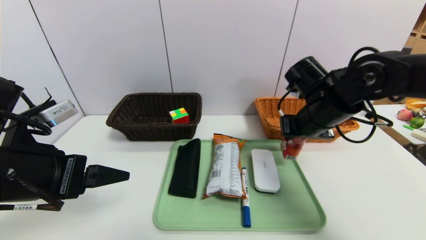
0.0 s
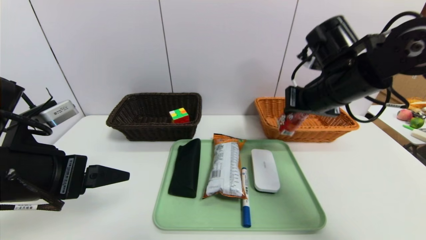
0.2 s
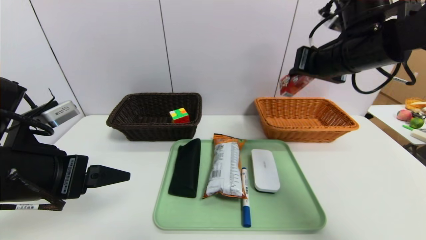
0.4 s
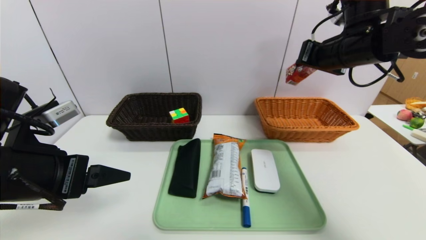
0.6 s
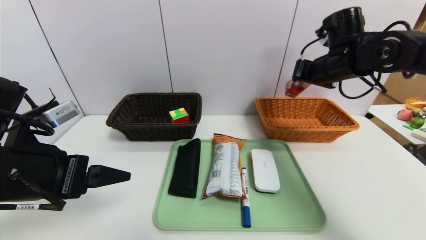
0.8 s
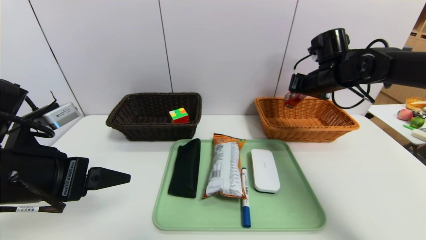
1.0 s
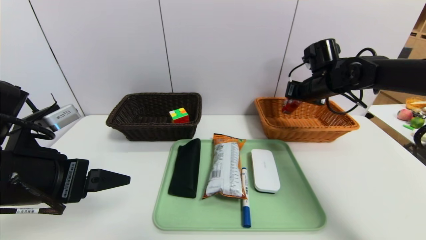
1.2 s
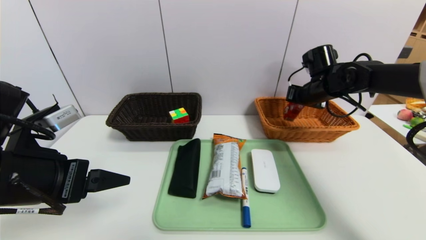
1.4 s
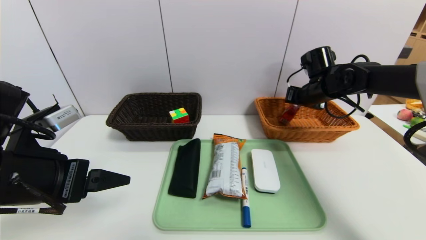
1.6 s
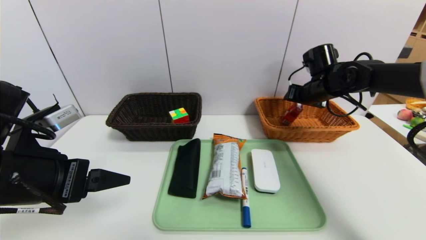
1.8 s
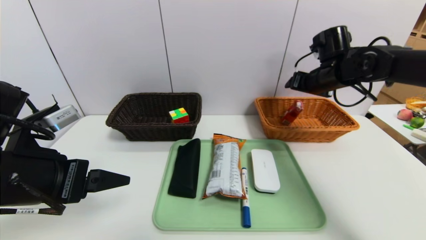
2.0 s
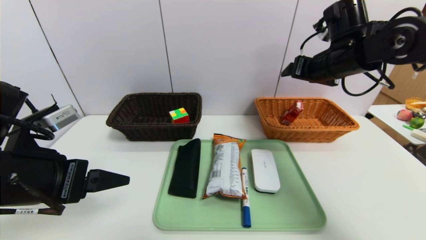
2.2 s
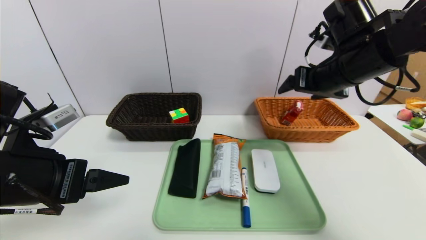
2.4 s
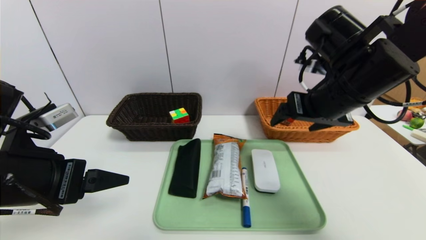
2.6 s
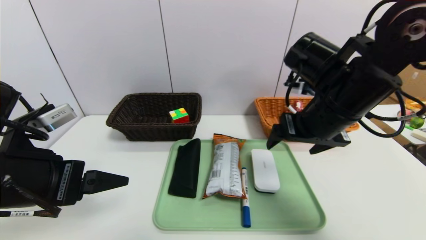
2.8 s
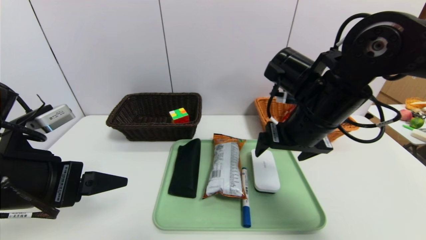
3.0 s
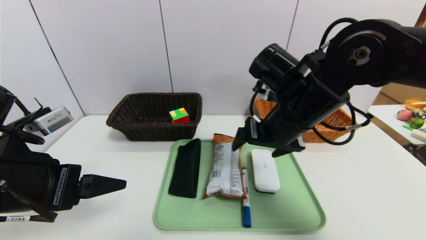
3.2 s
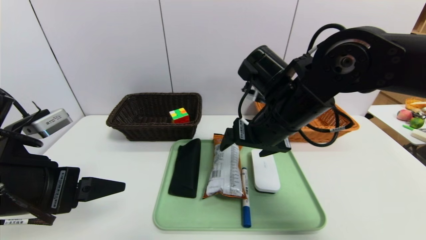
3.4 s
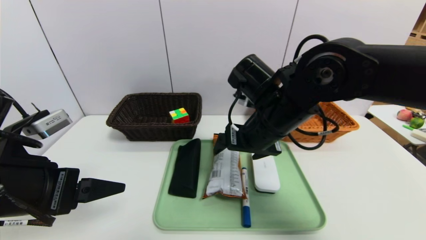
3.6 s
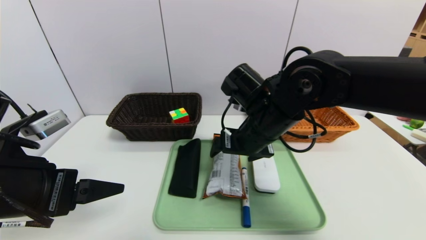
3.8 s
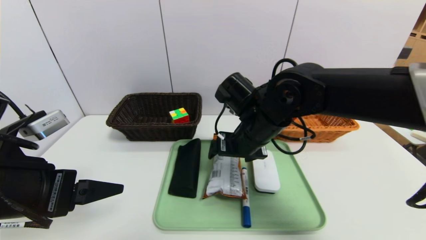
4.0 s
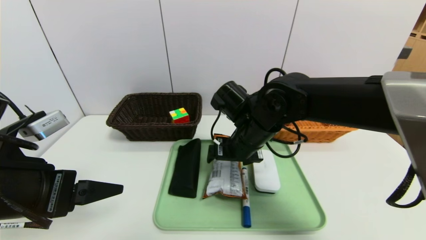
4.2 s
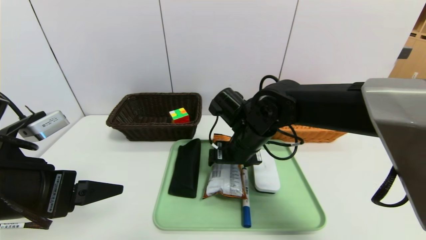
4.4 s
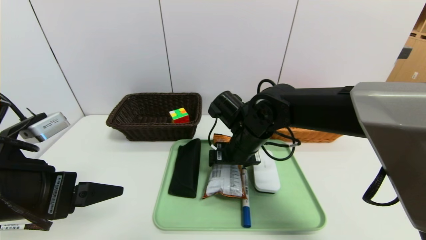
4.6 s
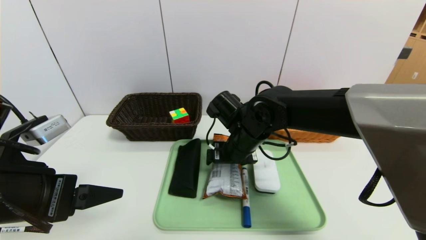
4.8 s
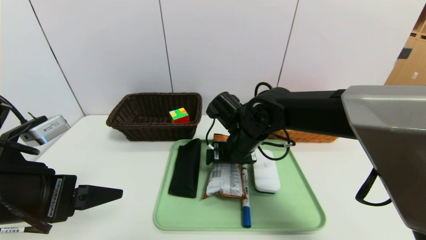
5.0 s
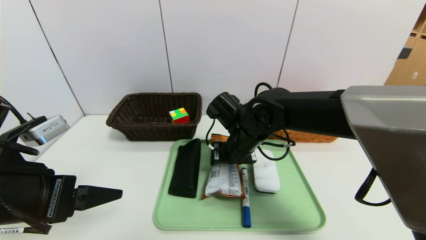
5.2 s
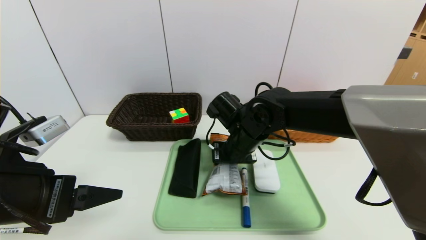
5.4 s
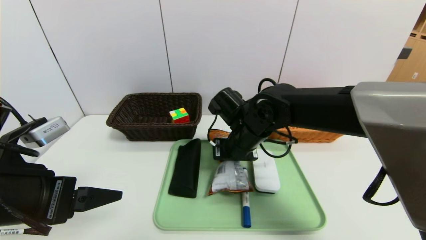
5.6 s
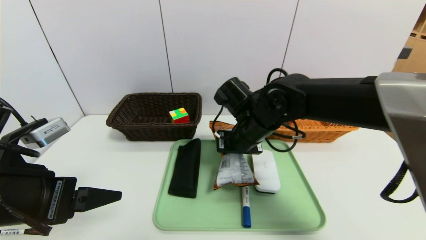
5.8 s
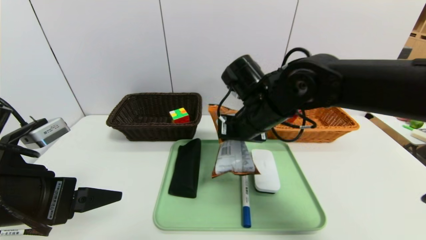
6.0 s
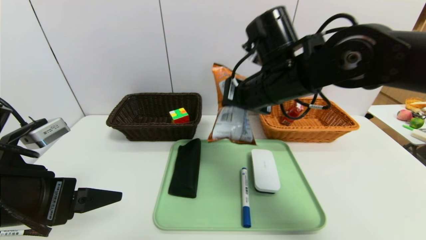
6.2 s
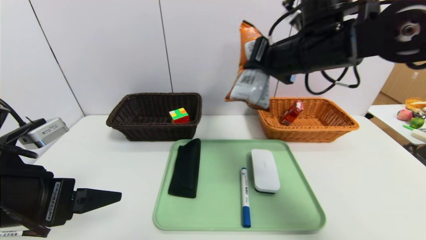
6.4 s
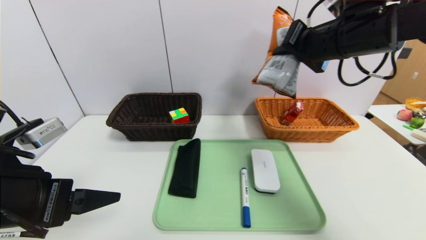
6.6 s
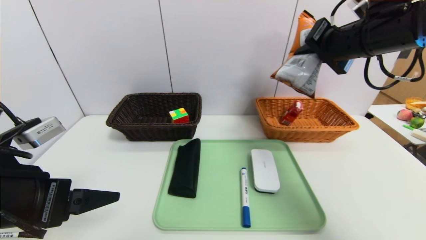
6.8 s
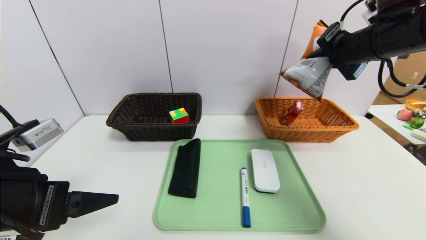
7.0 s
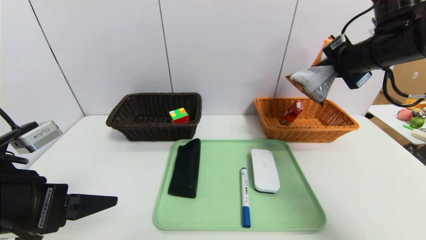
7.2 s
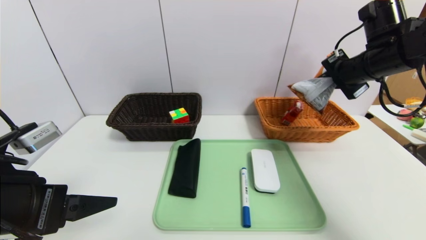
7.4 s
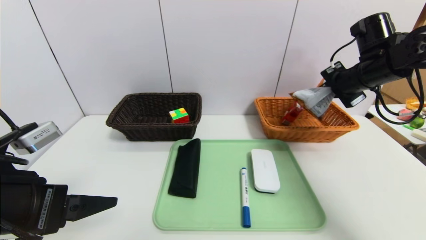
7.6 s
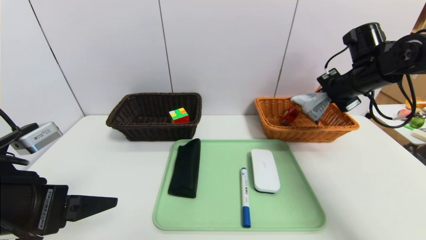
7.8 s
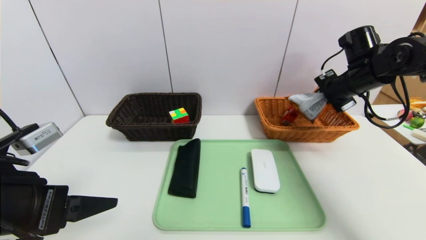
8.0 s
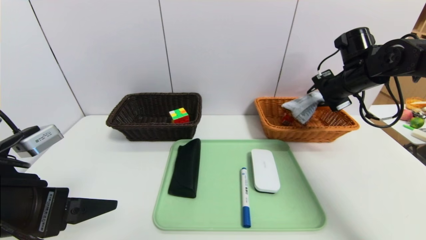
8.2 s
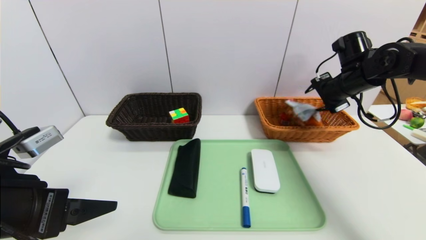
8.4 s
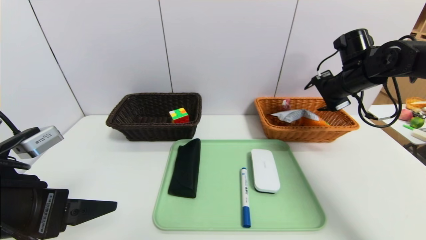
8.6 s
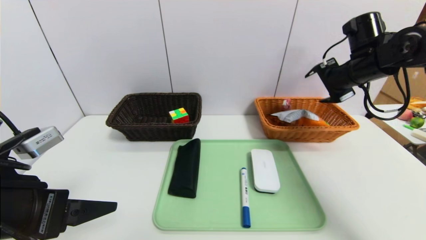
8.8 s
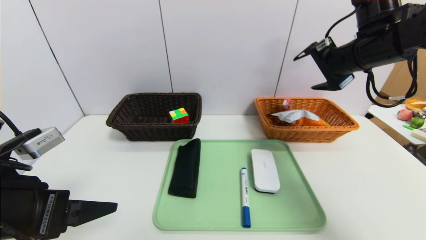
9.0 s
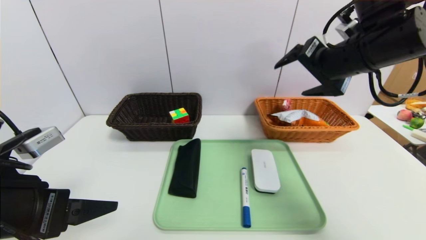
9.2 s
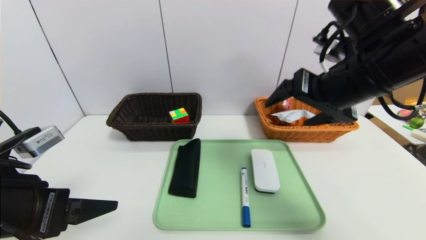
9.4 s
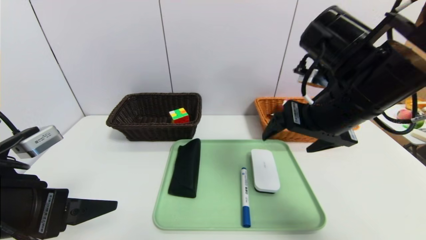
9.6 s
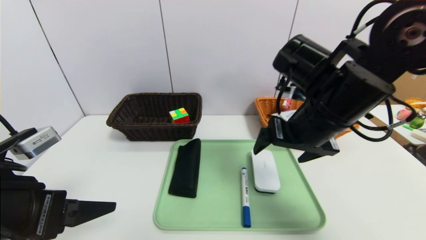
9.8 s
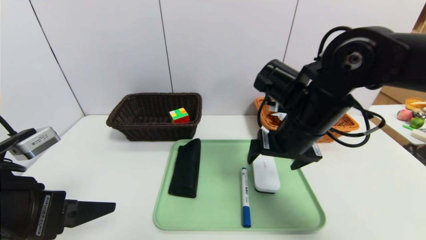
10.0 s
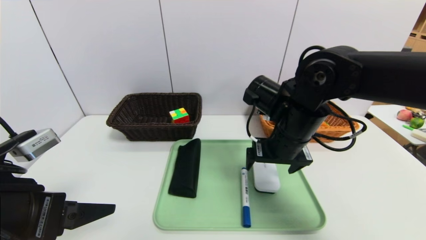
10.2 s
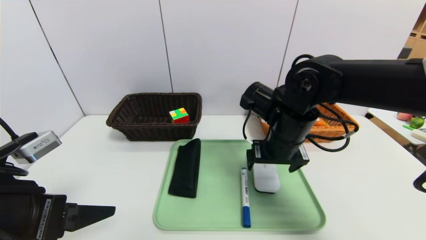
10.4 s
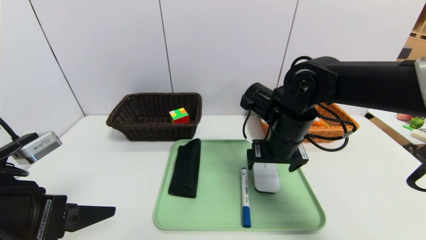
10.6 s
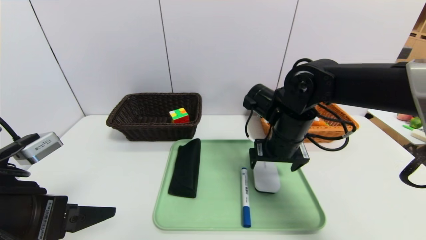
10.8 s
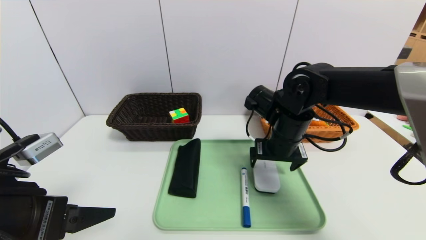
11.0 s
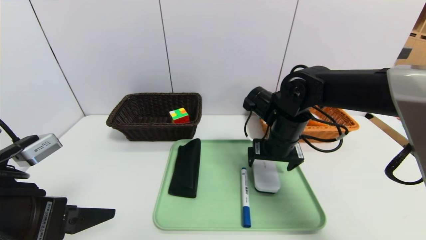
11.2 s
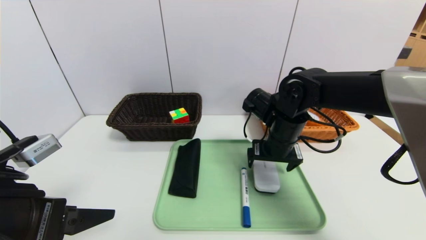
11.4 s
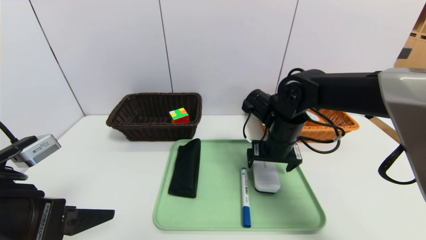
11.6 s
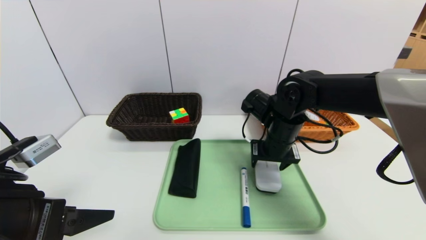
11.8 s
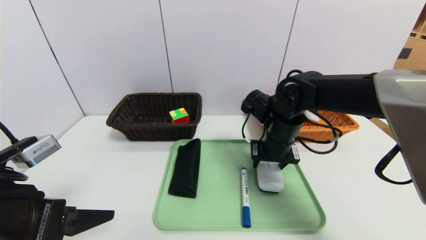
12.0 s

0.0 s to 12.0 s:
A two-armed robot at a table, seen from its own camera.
Task of the whole recording: place the food in the right basket with the right gripper, and place the non food items in the left basket with the left gripper.
Step, 0.0 to 2.2 s: Grasp the milk and put it in the right basket.
Step, 2.4 to 9.0 s: Grasp the cookie and put it in the right basket.
0.0 to 1.6 s: The right gripper moves forward and to the right, about 15 cm, and opens its fingers.
1.6 to 3.0 s: The right gripper goes some 20 cm backward and to the left, and opens its fingers.
3.0 to 4.4 s: The right gripper goes roughly 10 cm to the left and downward.
4.4 to 6.0 s: The right gripper shifts approximately 5 cm upward, and closes up.
6.0 to 7.6 s: The right gripper is displaced to the right by about 25 cm.
7.6 to 9.0 s: The right gripper moves roughly 5 cm, and opens.
9.0 to 10.4 s: The right gripper heads to the left and downward, covering some 20 cm.
10.4 to 12.0 s: The right gripper moves some 5 cm, and closes its fingers.

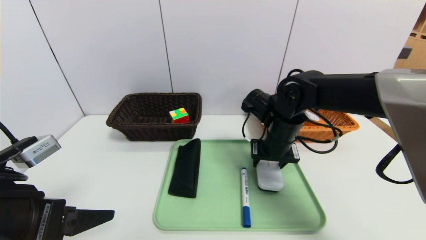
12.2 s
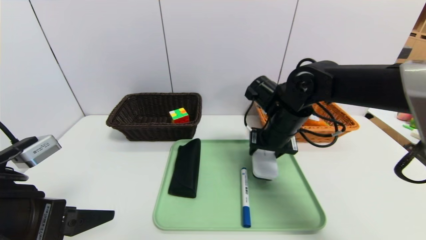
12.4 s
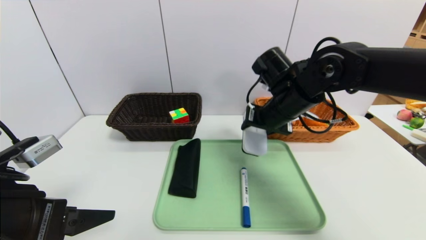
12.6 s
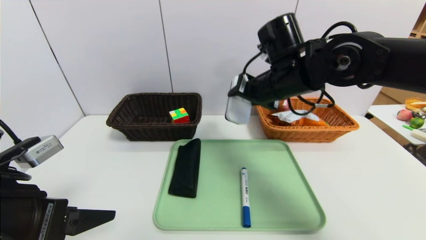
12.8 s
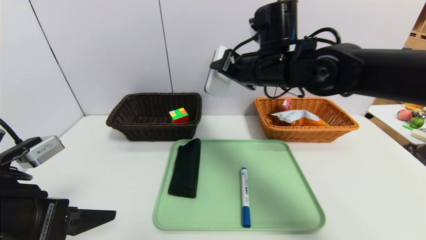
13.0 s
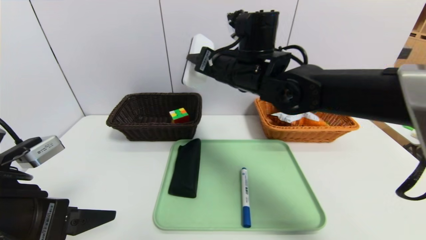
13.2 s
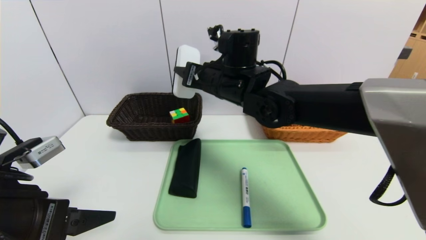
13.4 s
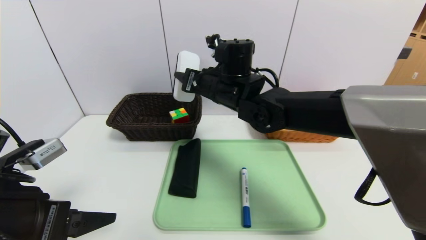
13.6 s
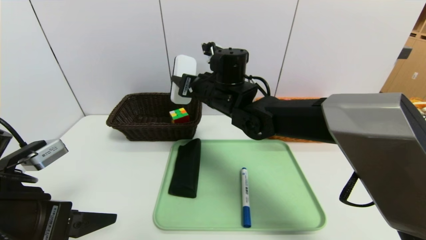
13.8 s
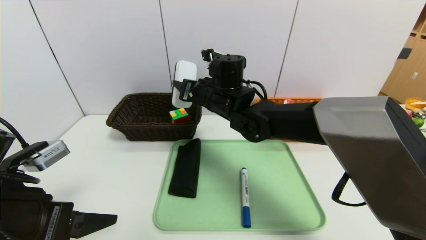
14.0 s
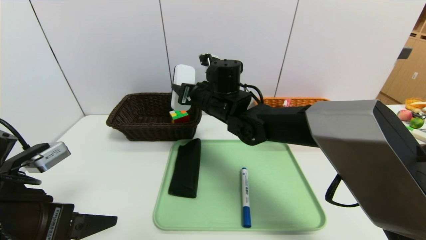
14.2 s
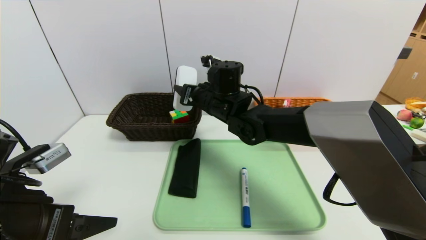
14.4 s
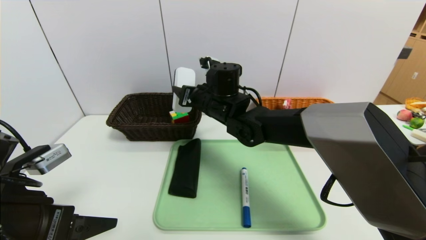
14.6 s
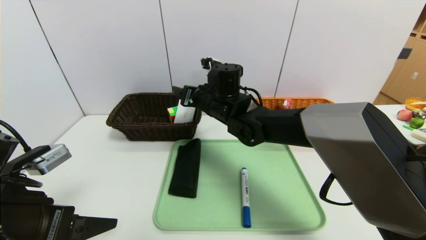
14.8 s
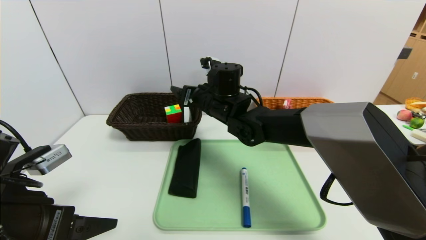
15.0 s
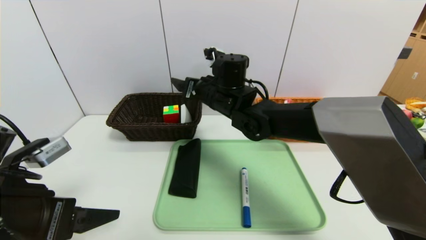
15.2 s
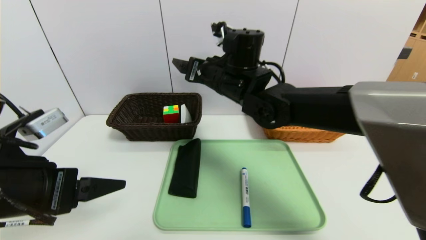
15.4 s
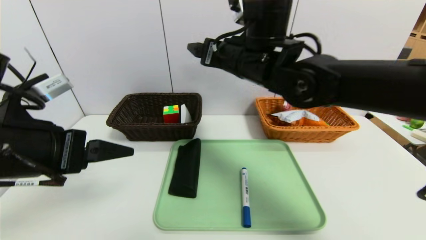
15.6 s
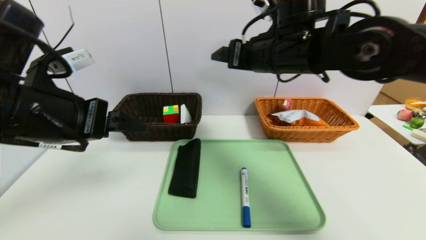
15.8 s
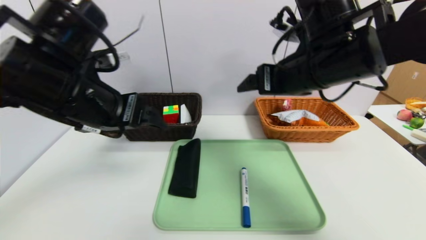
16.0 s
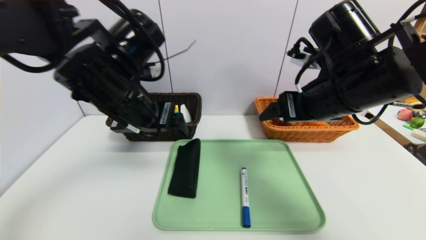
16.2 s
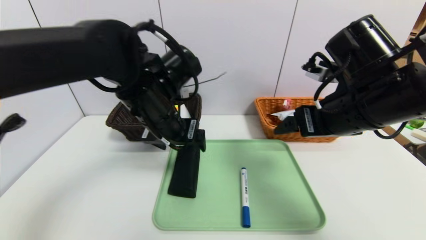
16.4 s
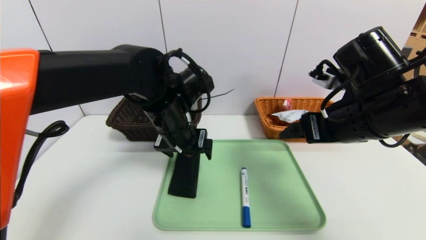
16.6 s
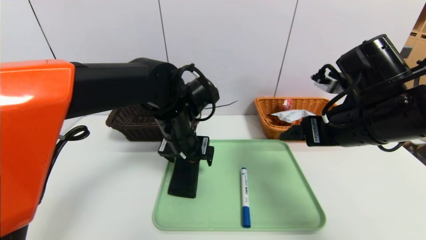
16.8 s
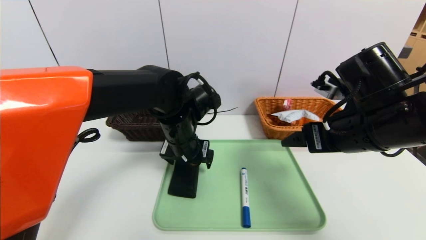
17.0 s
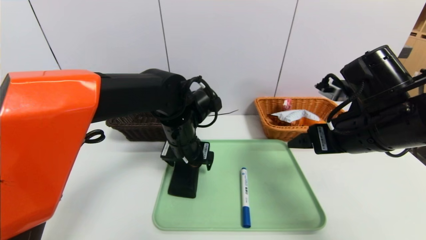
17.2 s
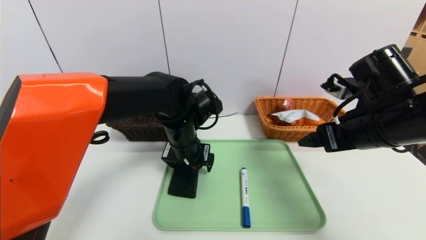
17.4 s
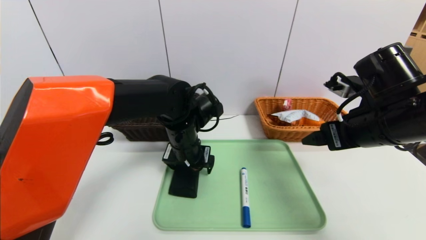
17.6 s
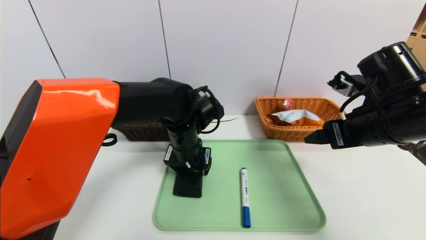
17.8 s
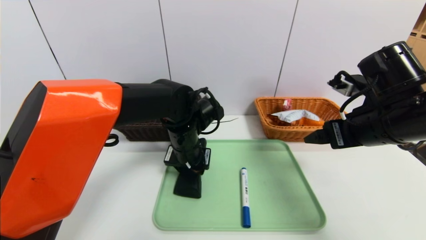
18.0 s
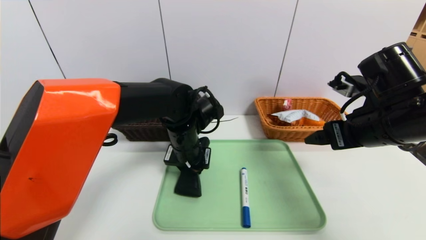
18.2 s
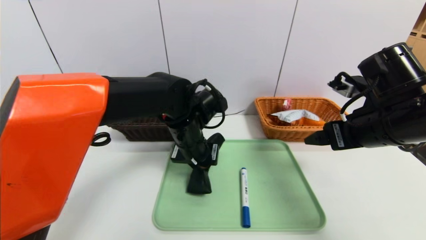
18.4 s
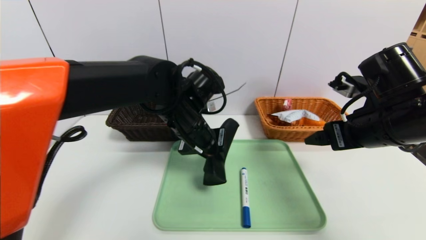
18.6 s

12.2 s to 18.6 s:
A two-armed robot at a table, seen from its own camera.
Task of the whole recording: place the food in the right basket with the right gripper, and place the non food items in the left basket with the left gripper.
Step, 12.2 to 15.6 s: Grasp the pen container and put it in the left basket.
12.2 to 13.8 s: The right gripper travels to the left and upward by some 15 cm.
13.8 to 15.4 s: The right gripper opens.
15.4 to 17.0 s: The right gripper shifts about 25 cm to the right and backward. The left gripper is displaced to the right and forward by some 25 cm.
17.0 to 18.6 s: The left gripper closes its fingers.
